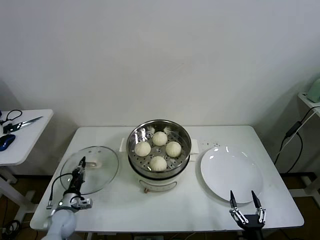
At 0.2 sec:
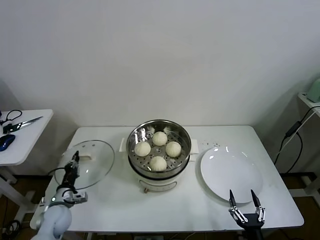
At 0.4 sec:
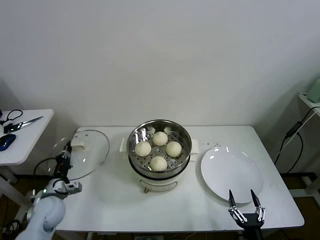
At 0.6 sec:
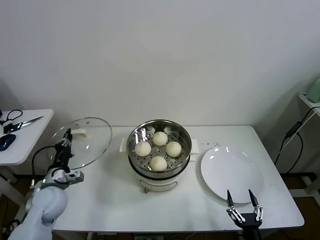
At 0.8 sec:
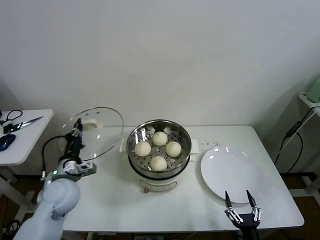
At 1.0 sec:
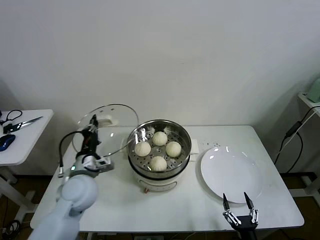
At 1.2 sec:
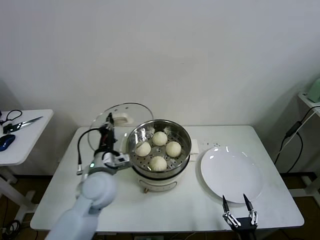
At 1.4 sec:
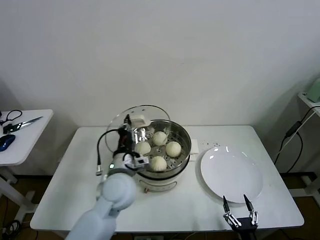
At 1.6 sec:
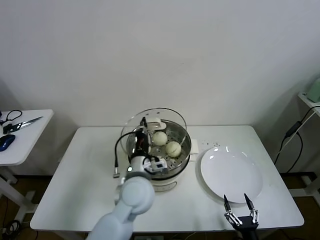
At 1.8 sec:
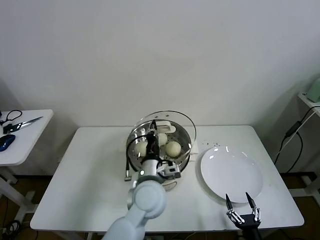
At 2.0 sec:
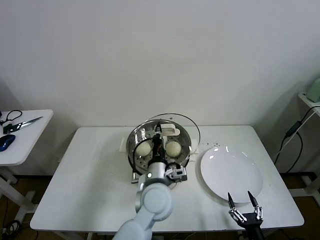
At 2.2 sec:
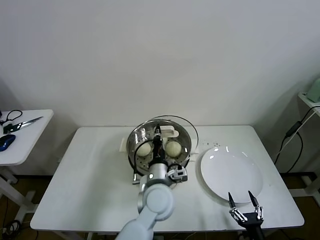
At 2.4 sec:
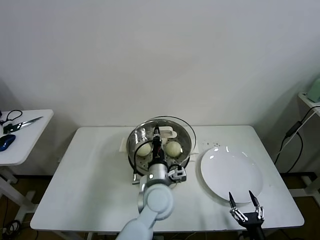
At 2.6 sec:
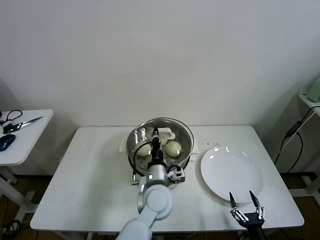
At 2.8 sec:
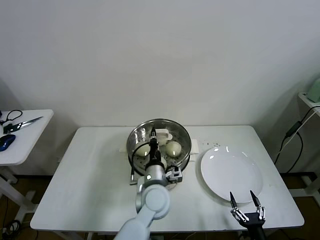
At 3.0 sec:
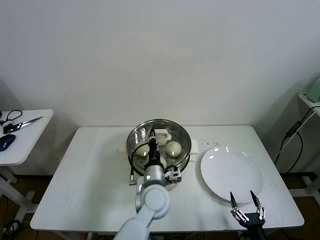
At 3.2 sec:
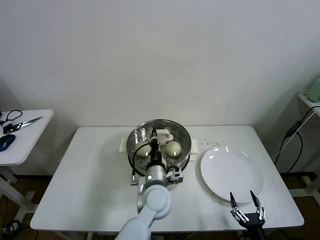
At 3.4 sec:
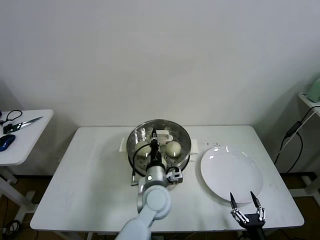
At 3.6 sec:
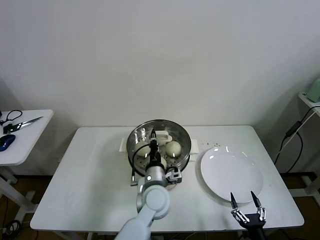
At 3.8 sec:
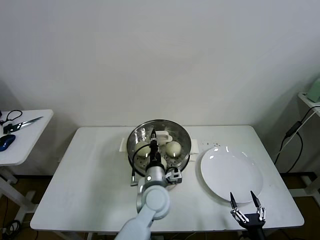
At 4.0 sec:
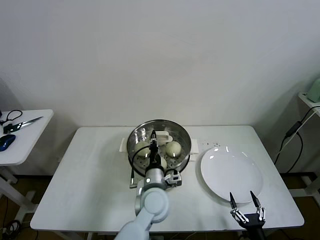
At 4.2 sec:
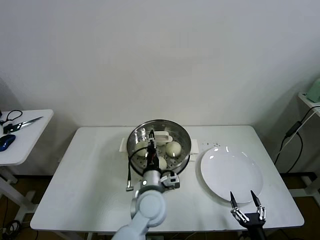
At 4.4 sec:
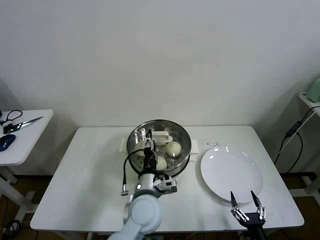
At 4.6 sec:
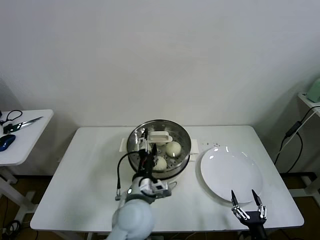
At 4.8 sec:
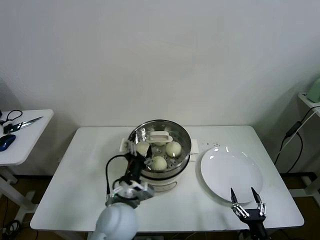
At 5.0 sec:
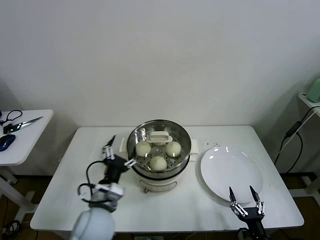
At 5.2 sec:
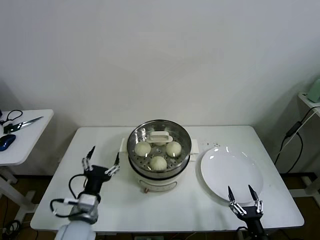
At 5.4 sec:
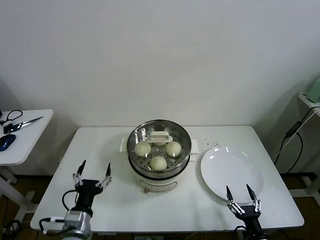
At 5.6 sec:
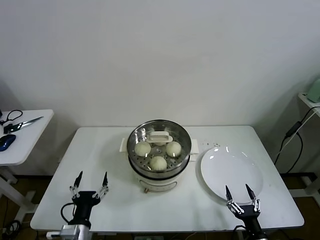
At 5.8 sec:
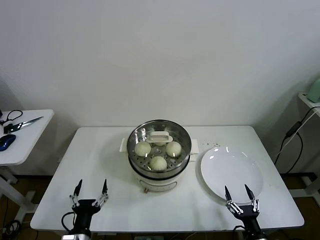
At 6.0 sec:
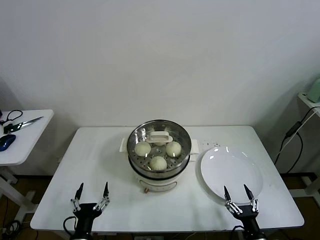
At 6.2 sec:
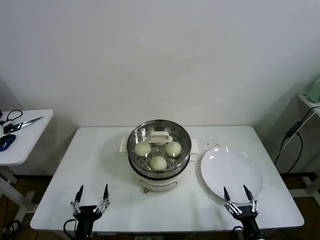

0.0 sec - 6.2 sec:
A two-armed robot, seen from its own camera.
Task of the whole recording: take steamed baozi put them in steamer then cover it.
Step, 0.0 sec - 4.4 sec: Place the pot lid on the steamer with left gripper.
0.0 sec - 1.6 sec: The left gripper travels to the right and upward by some 40 cm.
1.6 sec - 3.2 sec: The left gripper shifts some 10 cm to the right and downward.
3.2 sec - 4.6 sec: The left gripper is displaced backward by roughly 5 cm, and opens.
4.6 sec - 6.2 sec: The left gripper heads to the left, backward and downward, covering roughly 25 cm.
